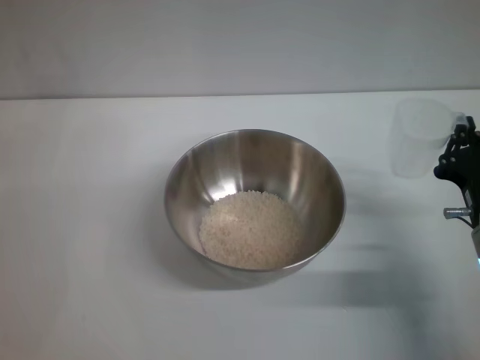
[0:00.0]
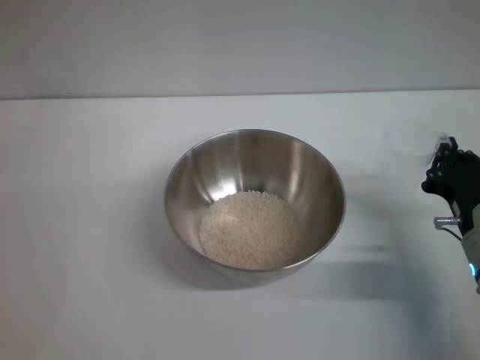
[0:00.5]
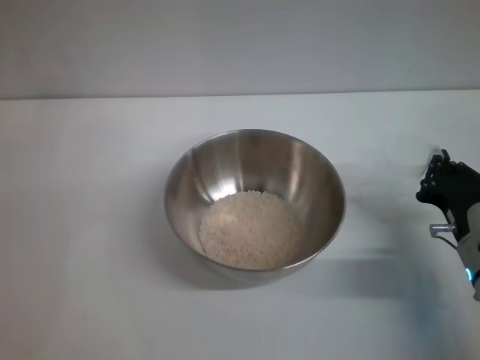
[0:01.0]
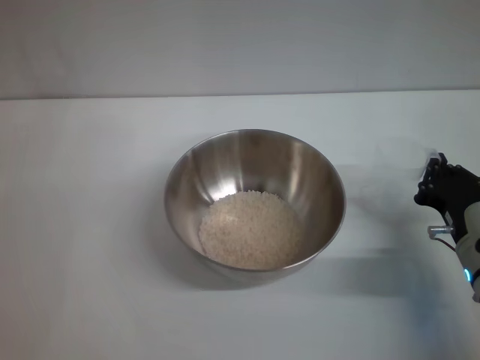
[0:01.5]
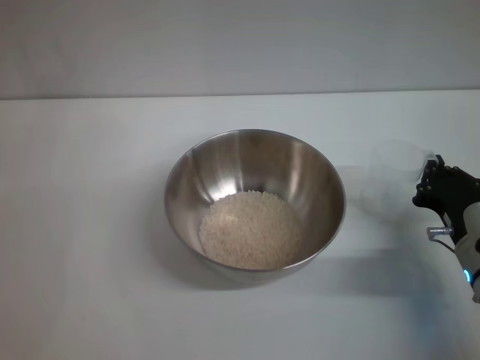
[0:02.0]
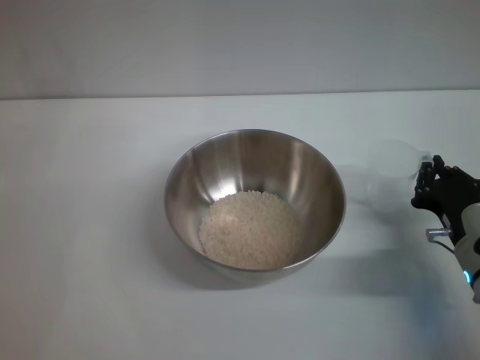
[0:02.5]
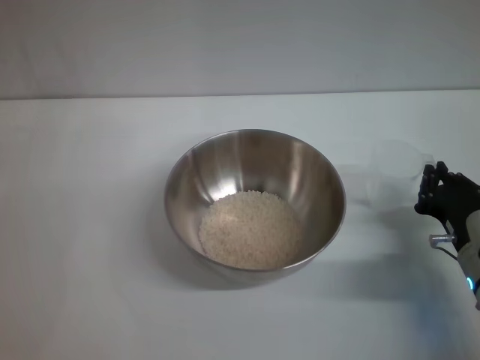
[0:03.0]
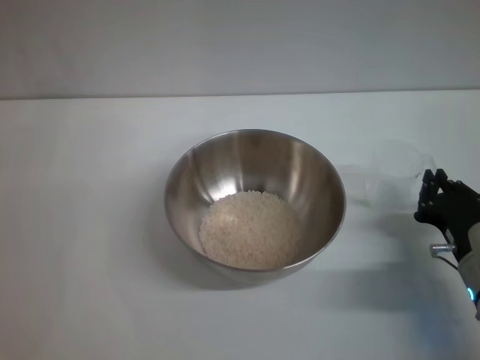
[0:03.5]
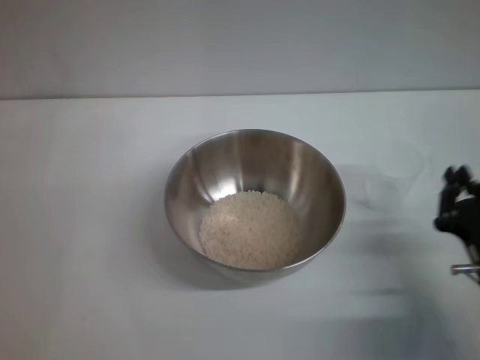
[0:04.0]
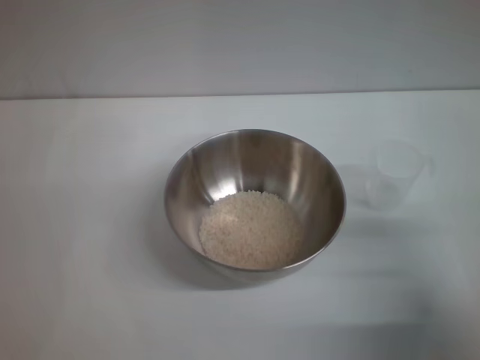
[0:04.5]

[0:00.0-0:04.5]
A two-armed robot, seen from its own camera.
Task of the whole recording: Place the bowl in the middle of the table with one hand and pour the rice from the grain cup into it with the other hand.
Step, 0:00.0 to 0:03.5: Place the cup on the table with the right gripper.
0:00.0 to 0:02.0: There are only small adjustments of the grippers.
0:02.0 to 0:04.5: The right gripper heads backward, covering approximately 5 cm.

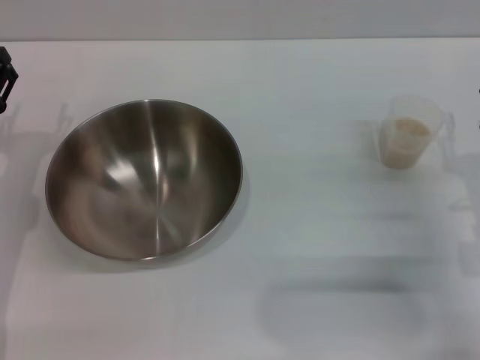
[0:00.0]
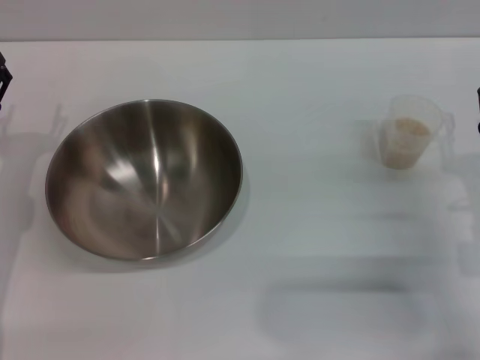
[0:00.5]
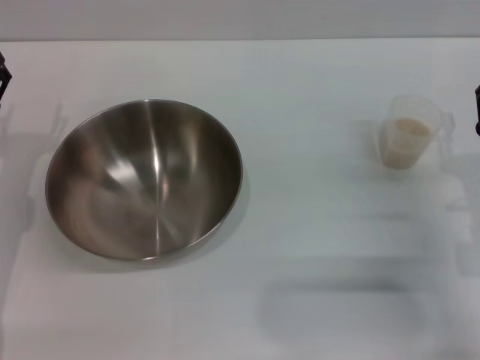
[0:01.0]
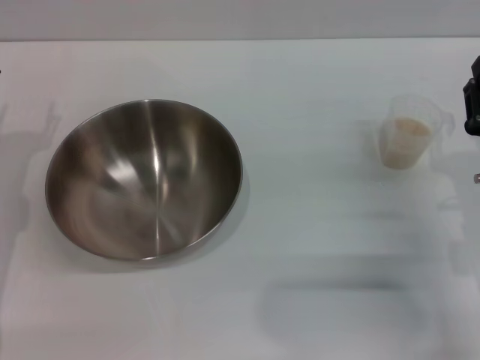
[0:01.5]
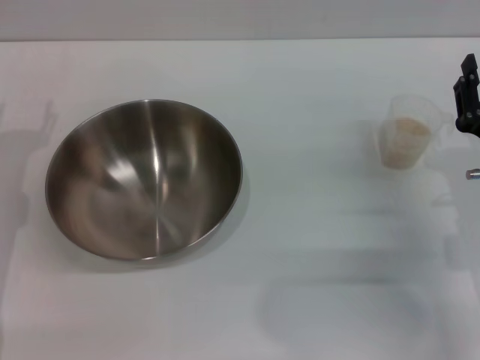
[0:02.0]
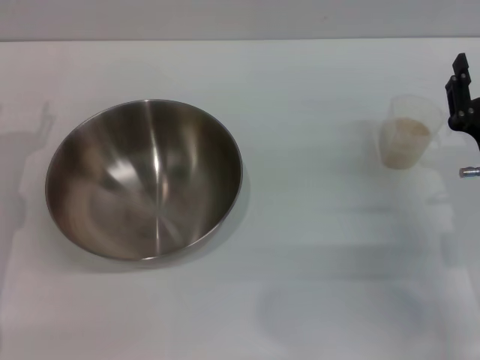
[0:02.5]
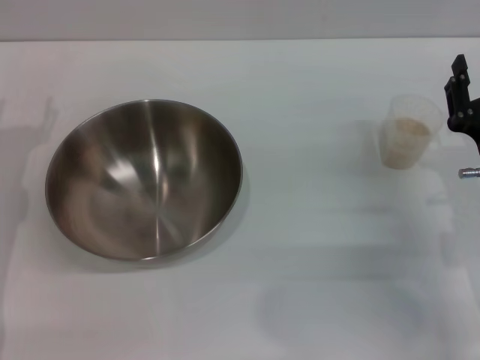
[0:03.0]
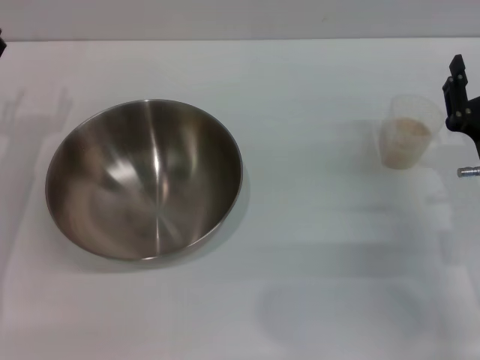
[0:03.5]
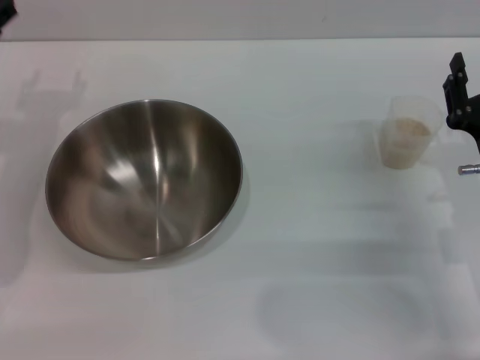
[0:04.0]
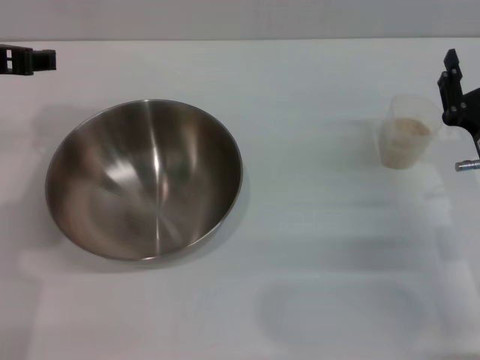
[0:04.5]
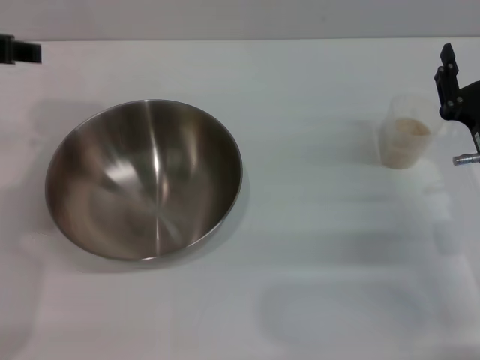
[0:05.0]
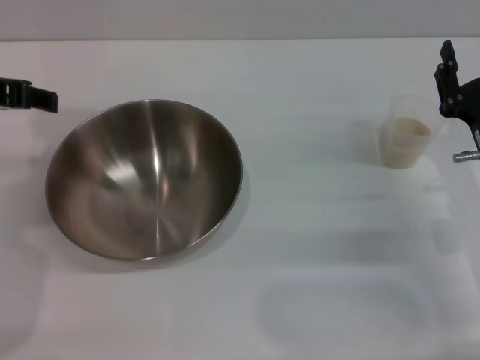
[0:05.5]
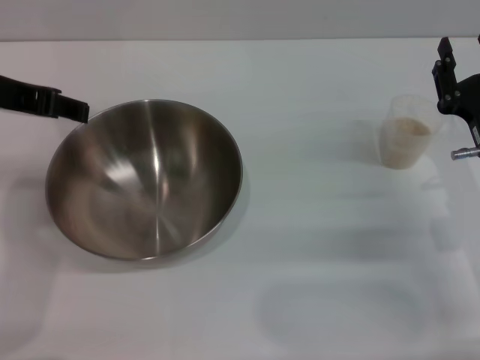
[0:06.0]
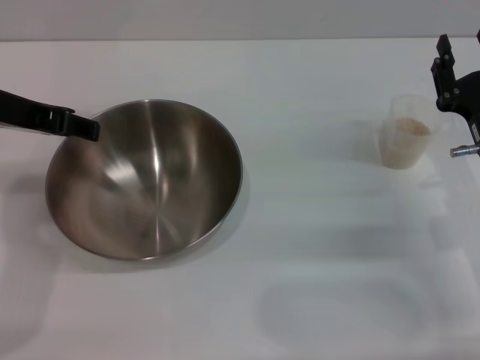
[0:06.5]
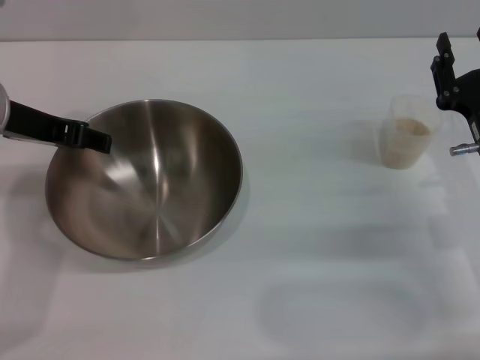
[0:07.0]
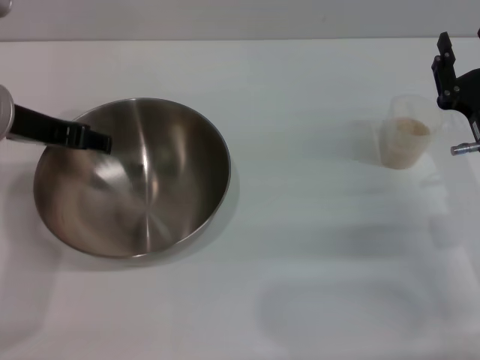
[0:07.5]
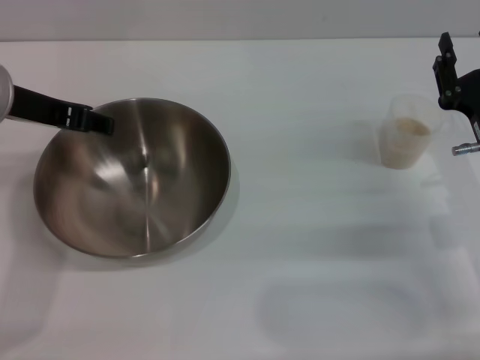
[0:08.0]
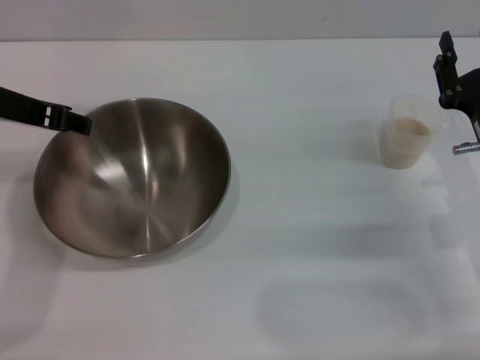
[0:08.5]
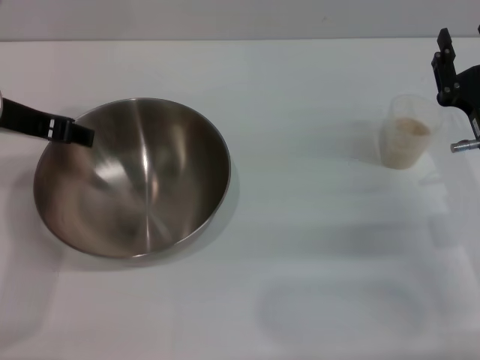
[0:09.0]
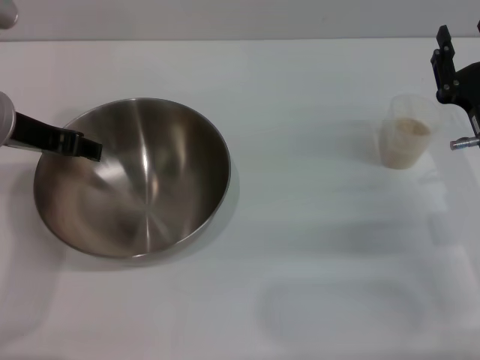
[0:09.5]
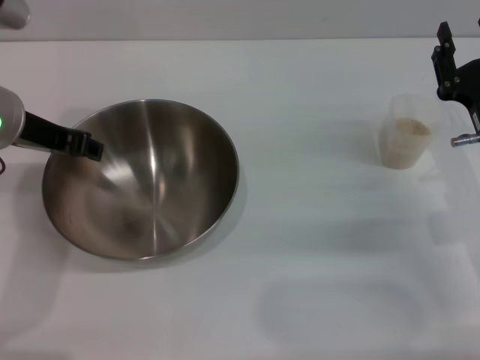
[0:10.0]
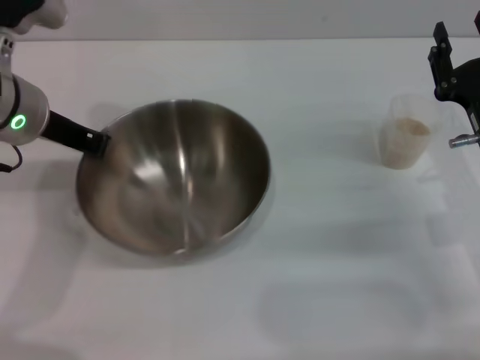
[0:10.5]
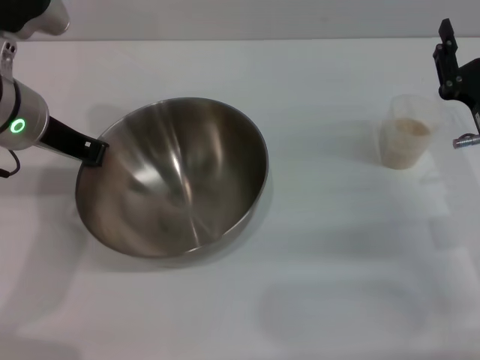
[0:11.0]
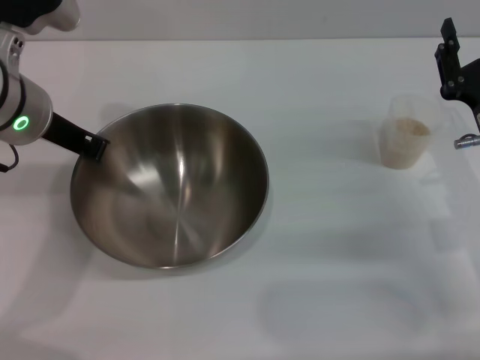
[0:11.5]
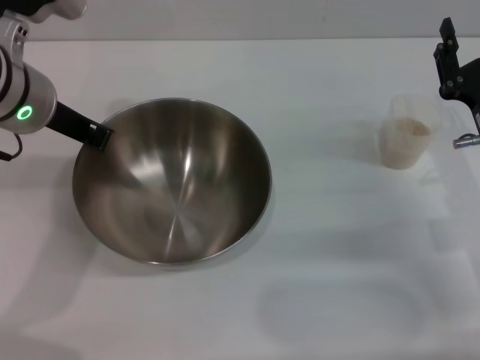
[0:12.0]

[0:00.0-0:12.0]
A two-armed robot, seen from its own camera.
Task of the whole recording: Place the bowl in the middle of the table with one hand and pour the rice from the grain cup into it with the other hand.
0:00.0 to 0:02.0: The grippers move only a little.
0:04.0 to 0:06.0: The left gripper goes some 10 cm upward and to the right.
0:08.0 to 0:10.0: The grippers stay close to where they were, moving slightly.
0:10.0 to 0:12.0: The left gripper closes up.

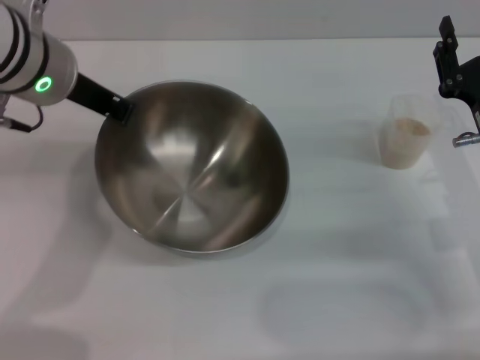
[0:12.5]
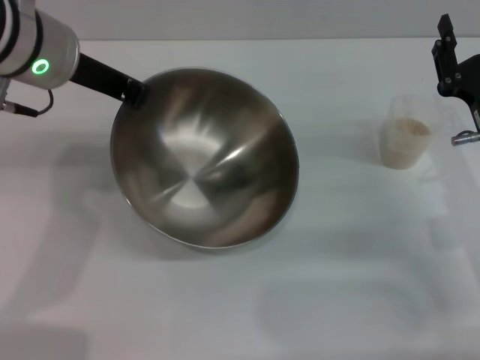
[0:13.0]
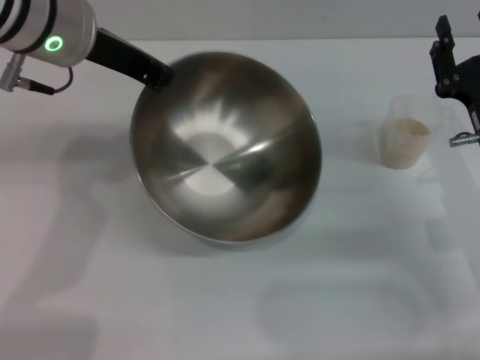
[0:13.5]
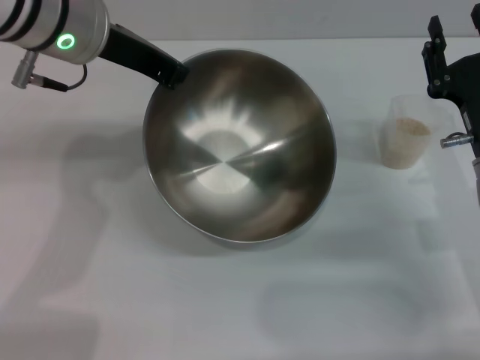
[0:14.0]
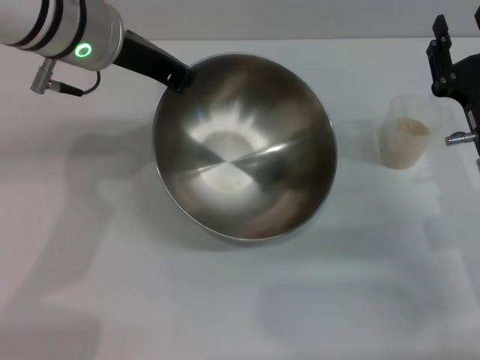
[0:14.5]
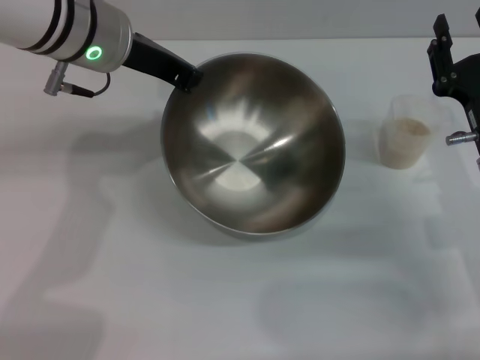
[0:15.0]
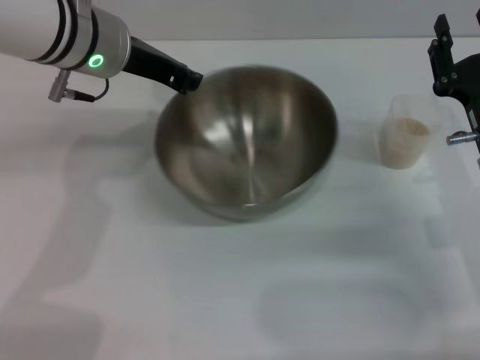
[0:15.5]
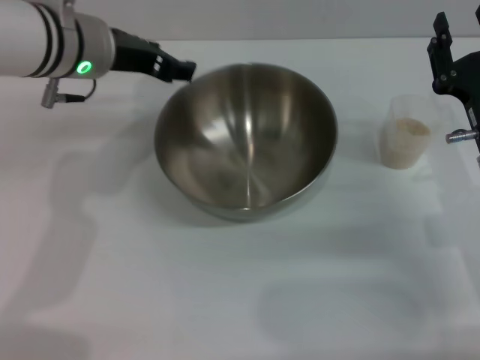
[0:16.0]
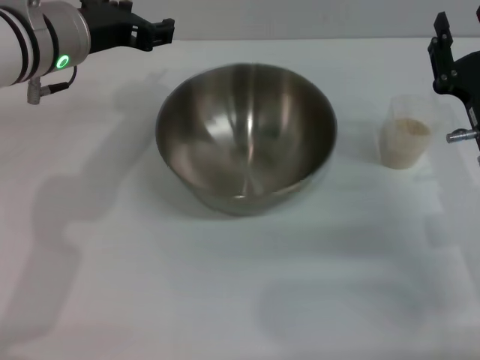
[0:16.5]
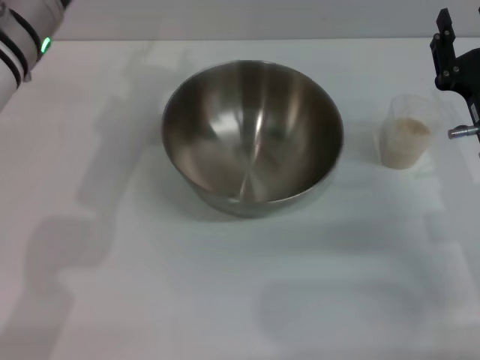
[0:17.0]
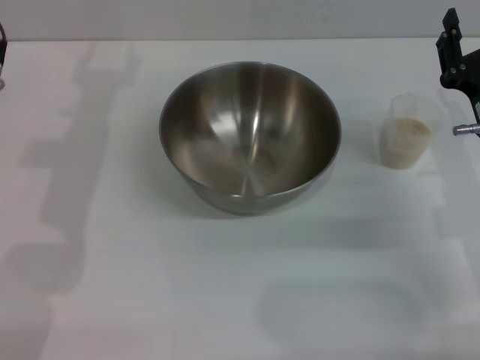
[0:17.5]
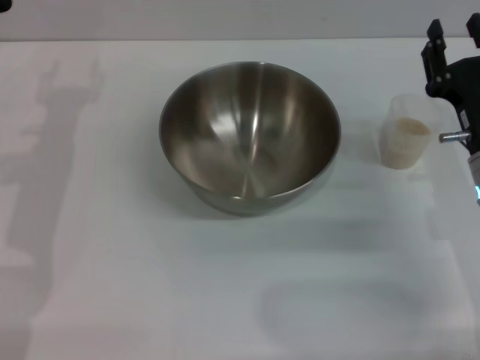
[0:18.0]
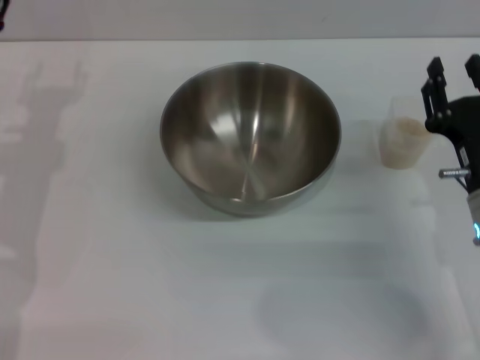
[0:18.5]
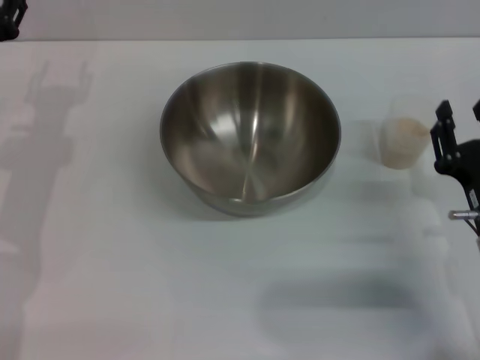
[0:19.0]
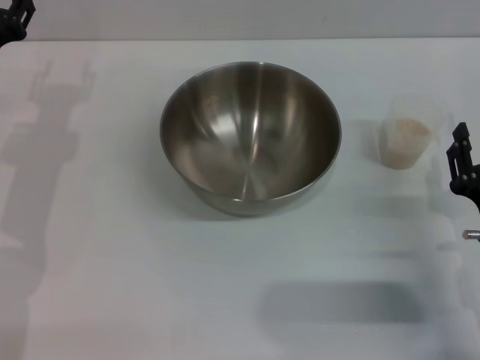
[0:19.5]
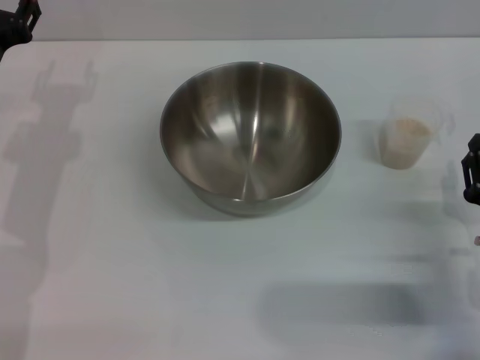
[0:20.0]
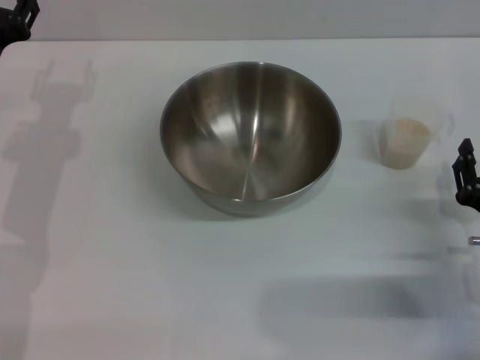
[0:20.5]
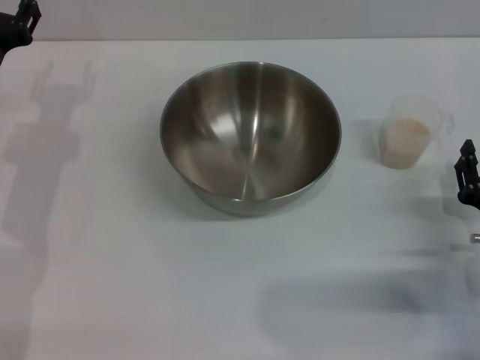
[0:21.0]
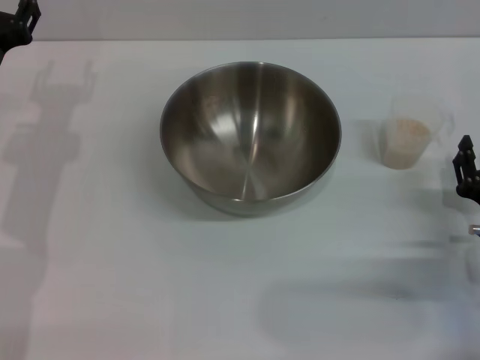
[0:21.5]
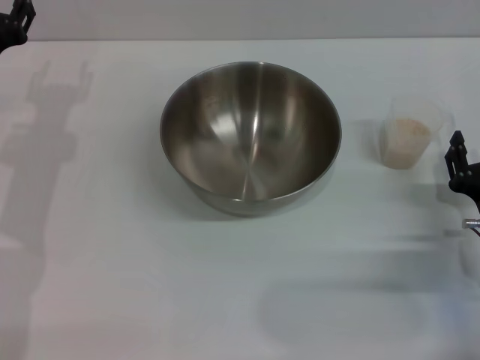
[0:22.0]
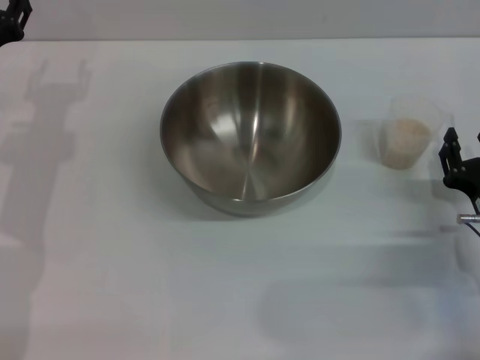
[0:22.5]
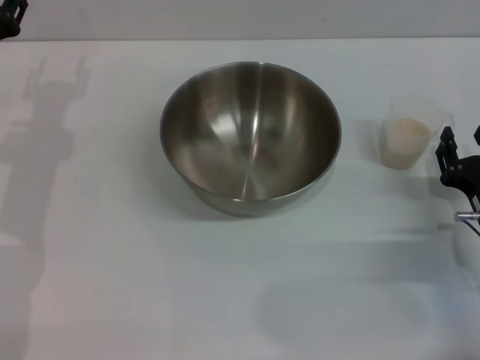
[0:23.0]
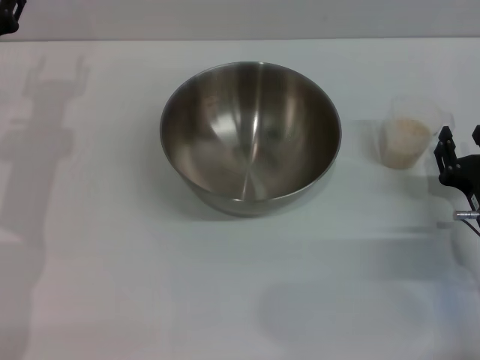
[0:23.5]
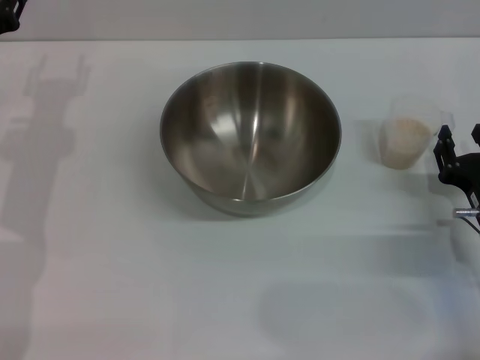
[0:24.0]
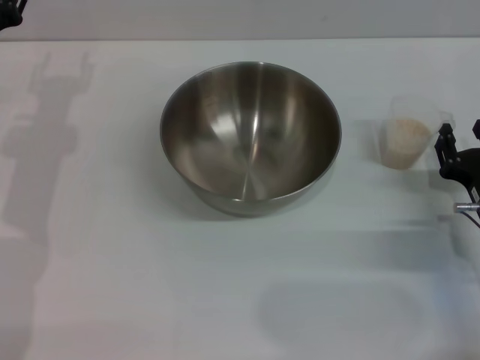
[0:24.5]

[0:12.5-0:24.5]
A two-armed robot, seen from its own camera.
Task of the whole recording: Place the bowl in the middle of the table with one hand and pour the rice from the grain cup into it with the other hand.
Step, 0:12.5 to 0:16.0: Place the bowl in the center of view with the left gripper.
0:14.5 to 0:16.5: The left gripper opens its fingers.
0:16.5 to 0:18.5: The left gripper travels to the left and downward by roughly 15 cm.
0:18.5 to 0:20.5: The right gripper is displaced backward by some 5 cm.
0:20.5 to 0:24.5: There are only small adjustments of the grippers.
